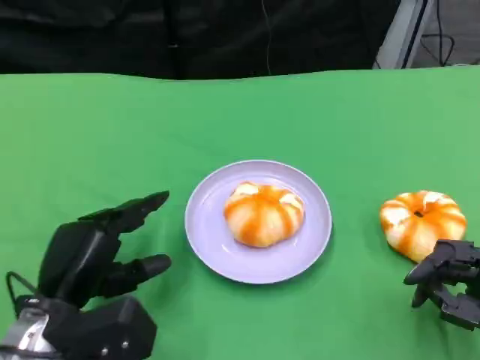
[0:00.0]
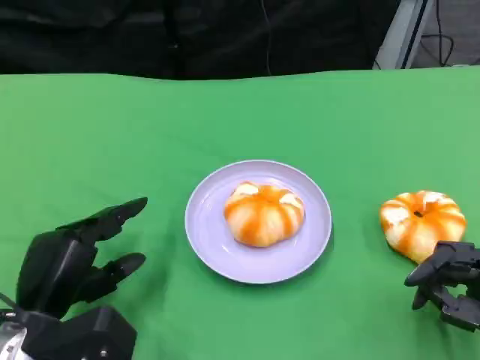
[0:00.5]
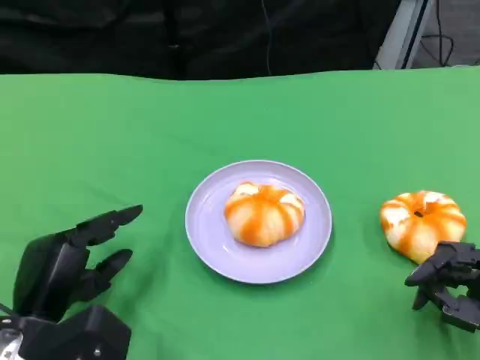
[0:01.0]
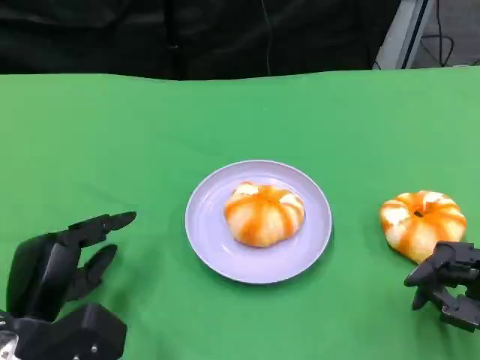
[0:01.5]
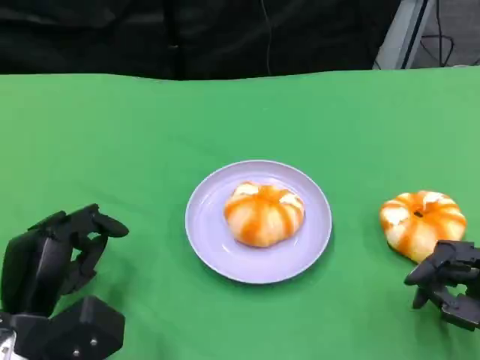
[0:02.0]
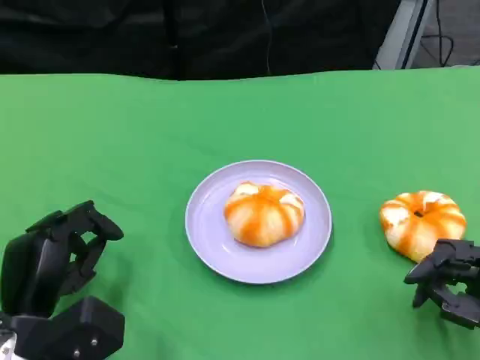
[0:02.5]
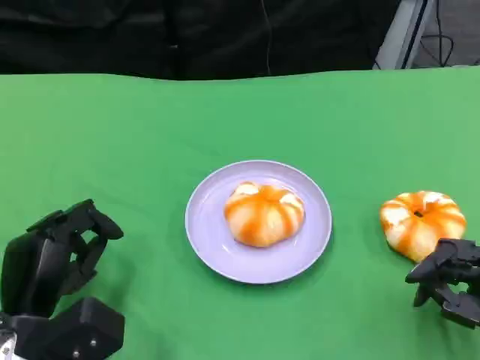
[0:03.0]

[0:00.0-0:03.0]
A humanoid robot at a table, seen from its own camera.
Task of the whole recording: Grasp the bread from the table and place it into the plate.
0:00.0 to 0:01.5: The hands move only a little.
0:01.5 to 0:03.0: Both hands stay put.

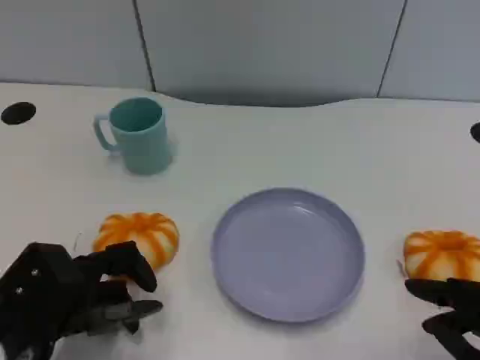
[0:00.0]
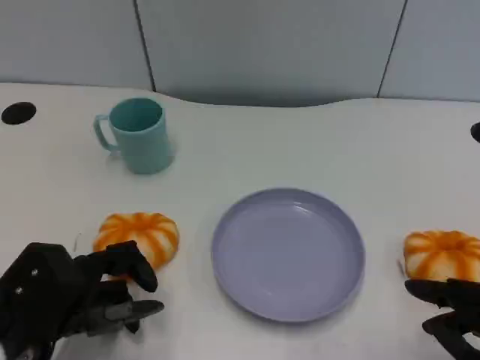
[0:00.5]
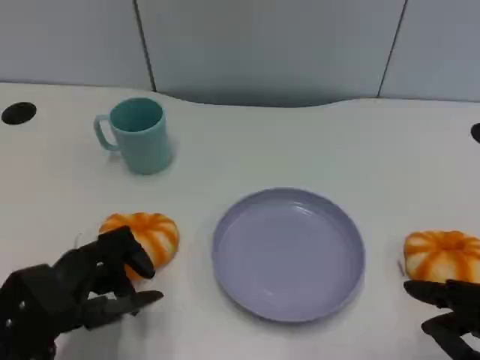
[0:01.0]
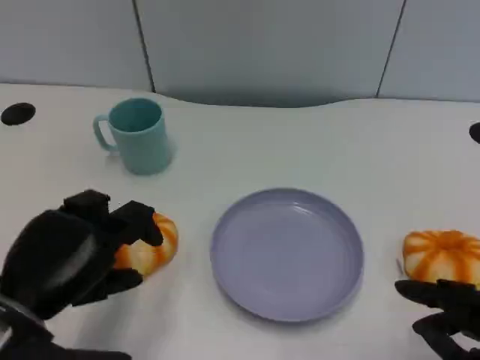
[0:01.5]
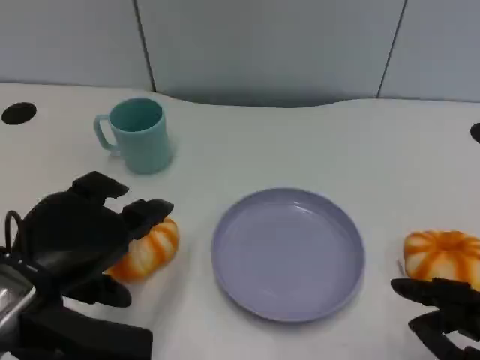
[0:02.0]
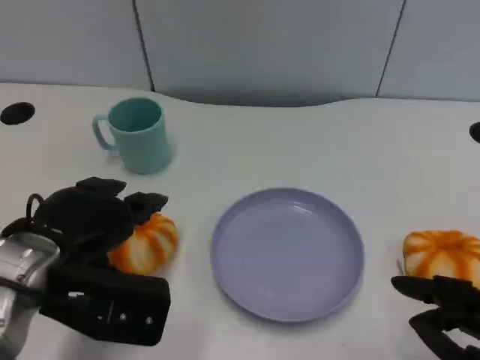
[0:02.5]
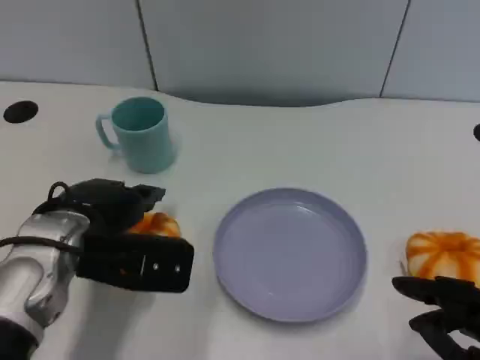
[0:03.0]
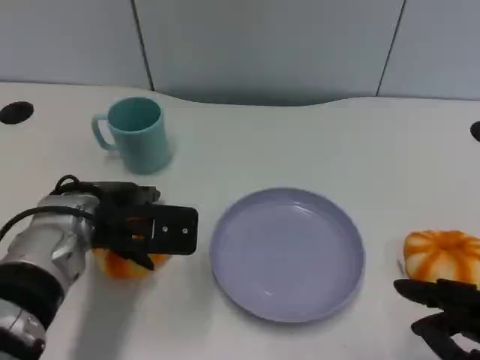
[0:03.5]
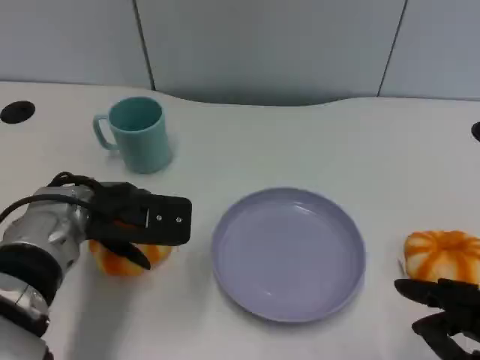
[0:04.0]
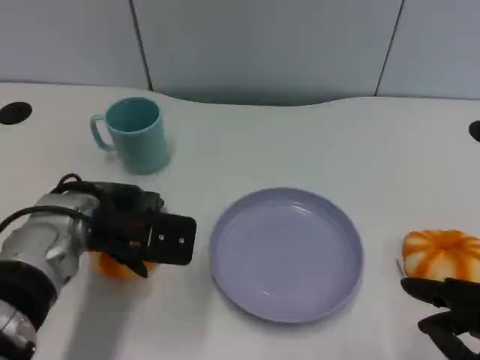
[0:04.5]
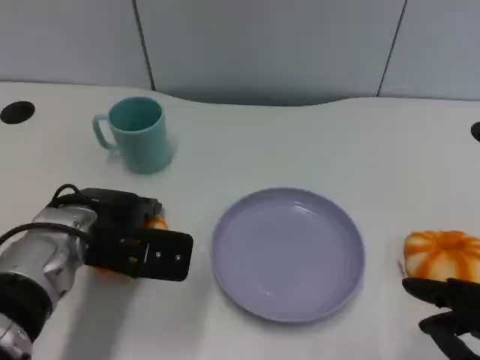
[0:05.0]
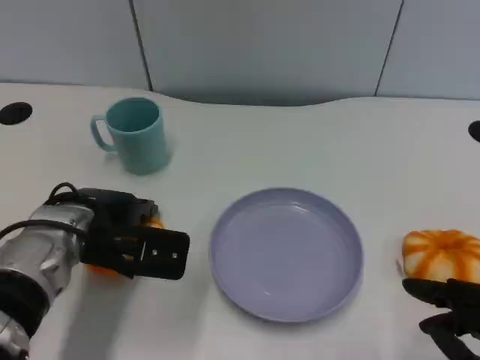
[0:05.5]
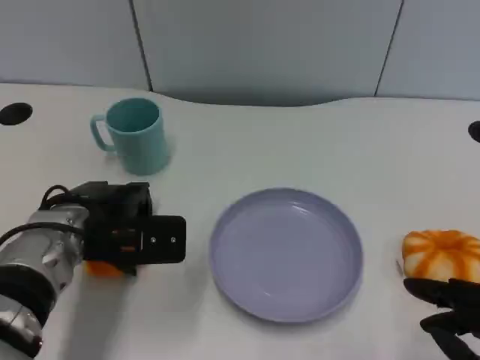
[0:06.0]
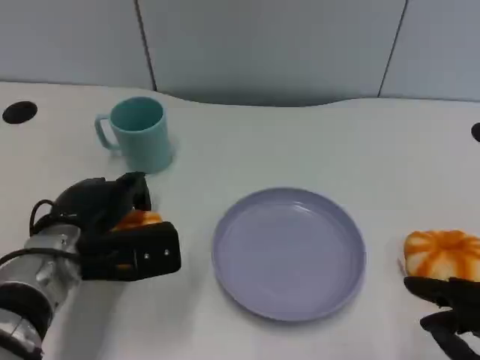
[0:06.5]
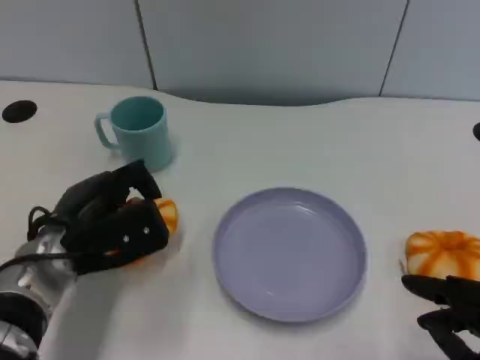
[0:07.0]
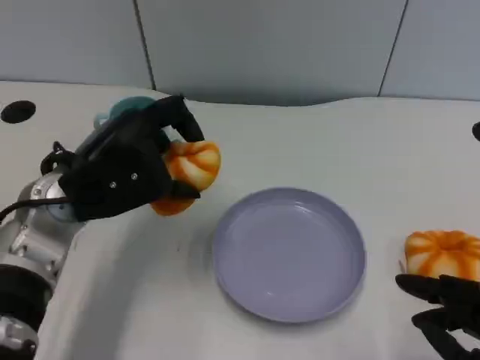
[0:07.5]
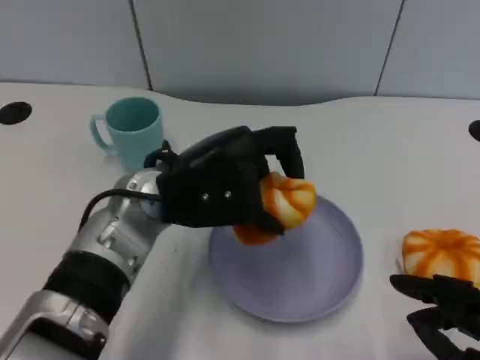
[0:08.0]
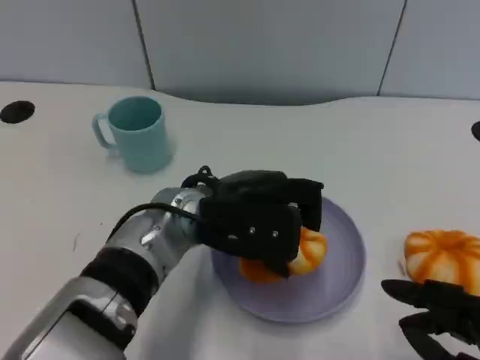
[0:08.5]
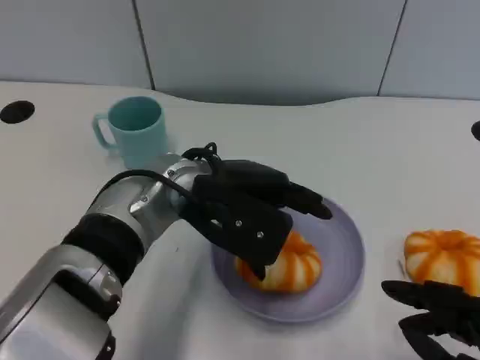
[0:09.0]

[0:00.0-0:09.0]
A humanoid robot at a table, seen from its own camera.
Task of the whole recording: Grasp the bread from the table and place it into the plate.
0:00.0 to 0:02.0: The left hand heads upward, covering about 10 cm.
0:02.0 to 0:04.5: The left hand heads forward, covering some 10 cm.
0:07.0 to 0:09.0: The left hand moves to the right and upward, roughly 15 cm.

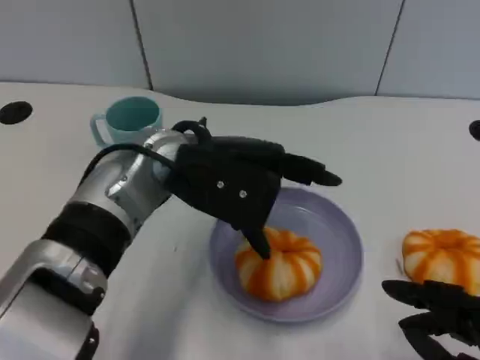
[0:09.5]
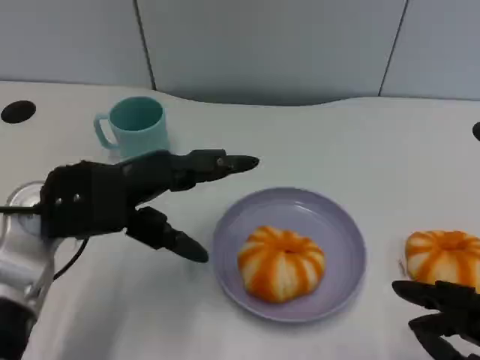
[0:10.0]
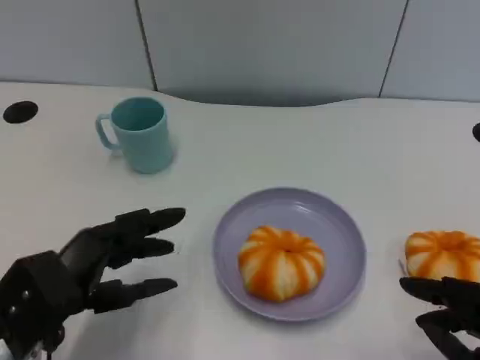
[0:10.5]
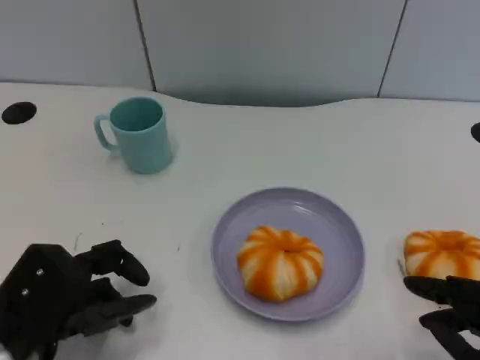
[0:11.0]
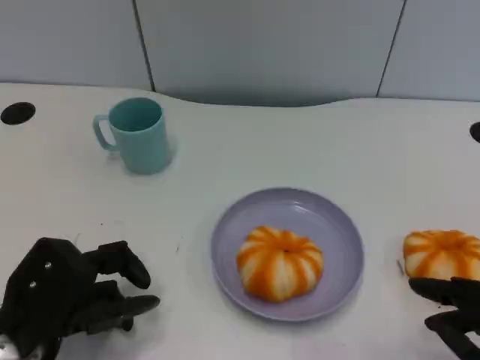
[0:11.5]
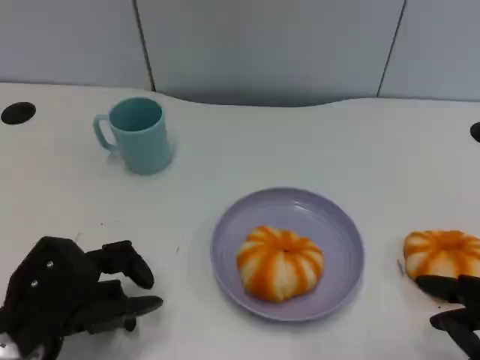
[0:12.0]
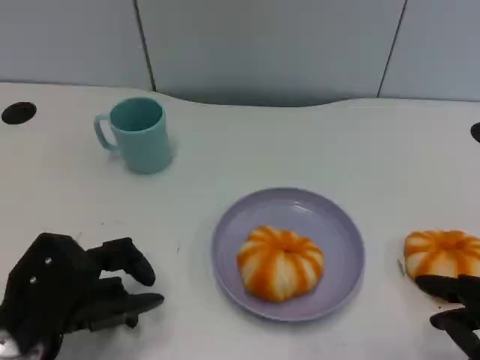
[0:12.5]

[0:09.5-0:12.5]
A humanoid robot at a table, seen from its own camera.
Task of the whole recording: Grasp the bread from the table and place it into the plate.
0:09.5 to 0:11.0: The left hand goes roughly 25 cm to the left, downward and backward.
0:11.0 to 0:12.5: The two hands keep their place.

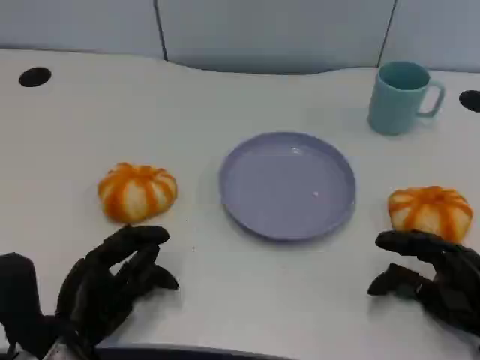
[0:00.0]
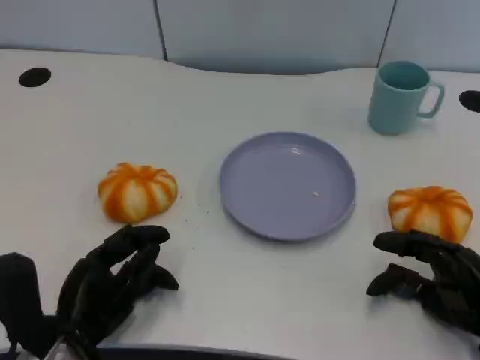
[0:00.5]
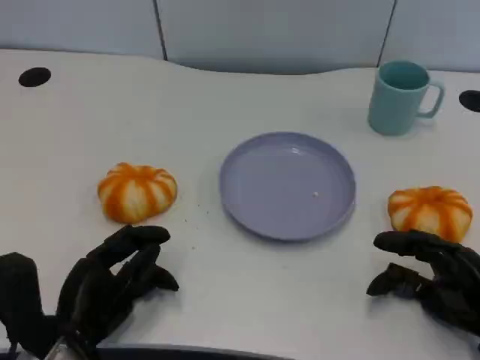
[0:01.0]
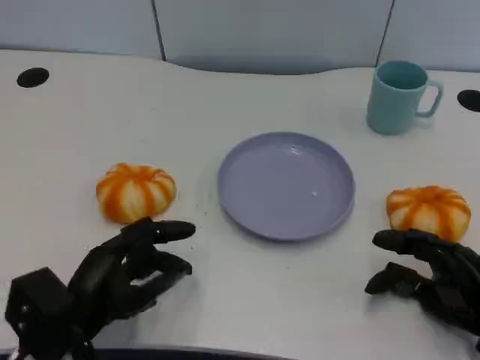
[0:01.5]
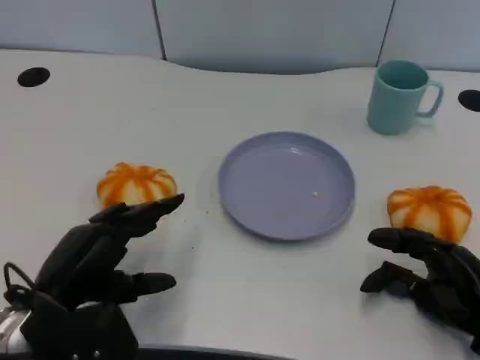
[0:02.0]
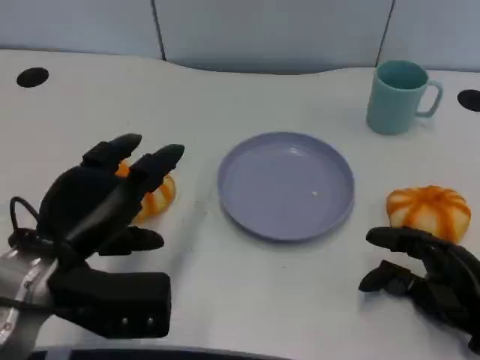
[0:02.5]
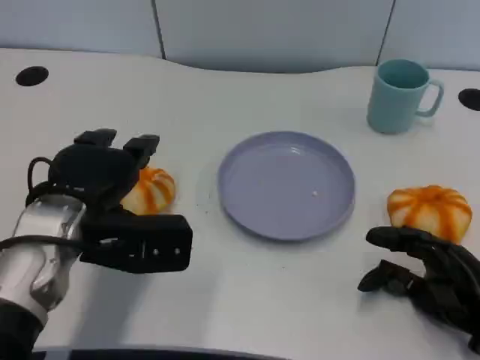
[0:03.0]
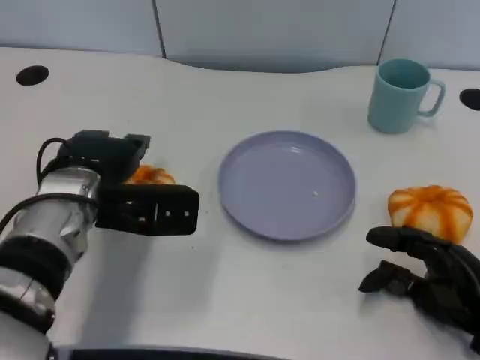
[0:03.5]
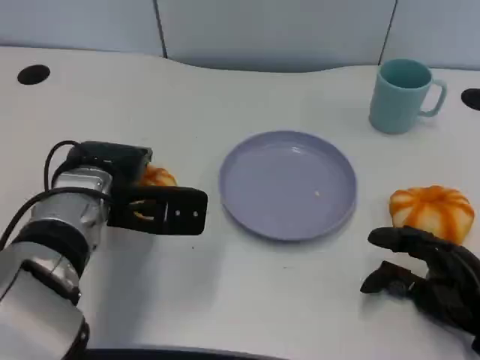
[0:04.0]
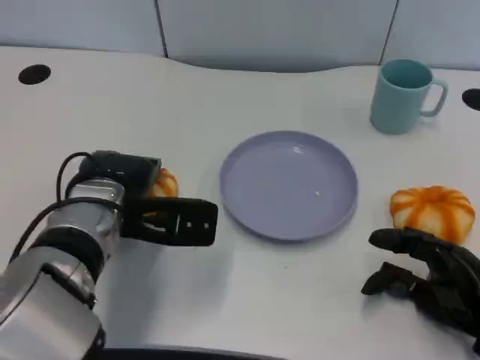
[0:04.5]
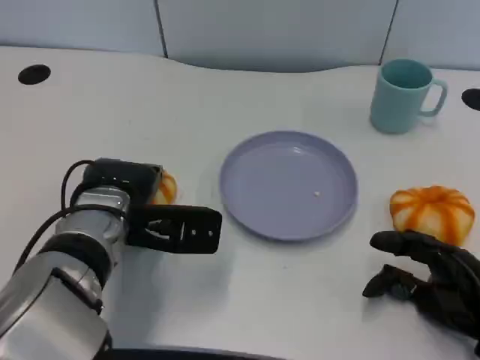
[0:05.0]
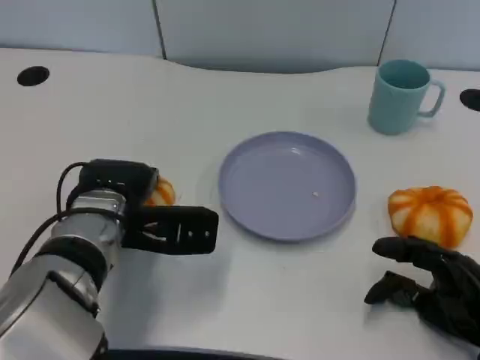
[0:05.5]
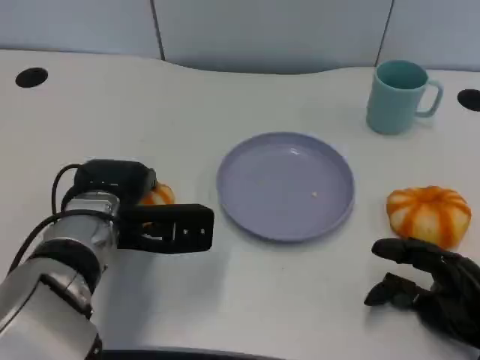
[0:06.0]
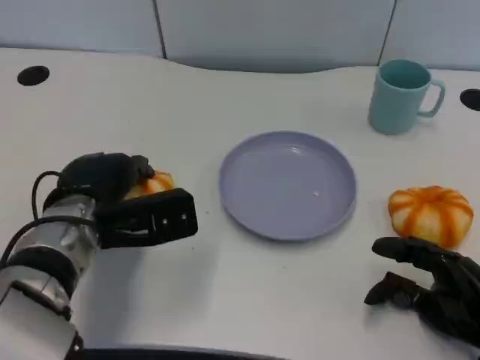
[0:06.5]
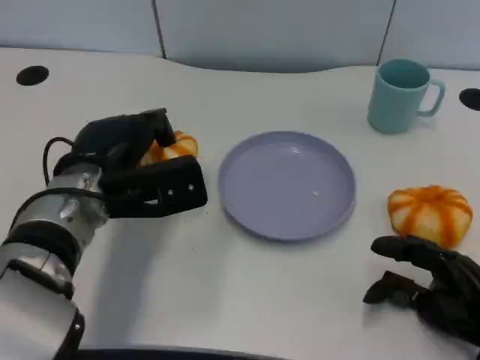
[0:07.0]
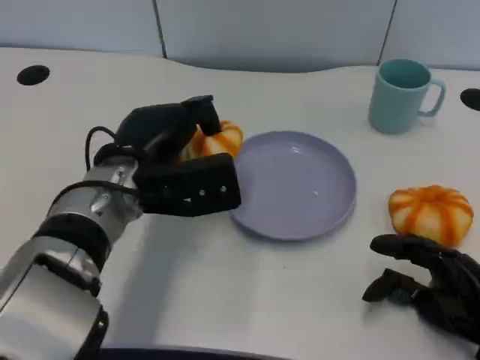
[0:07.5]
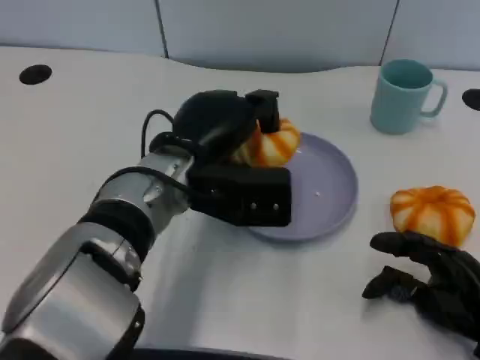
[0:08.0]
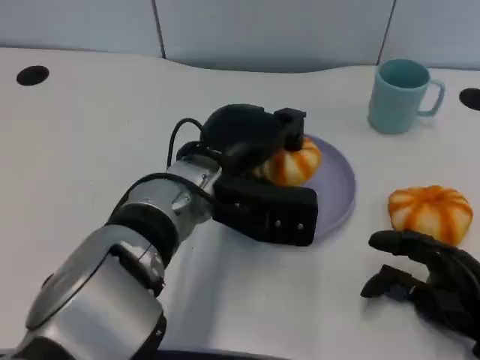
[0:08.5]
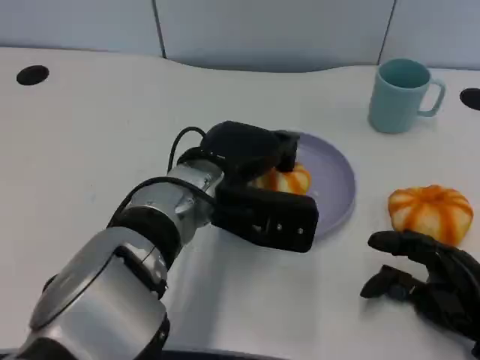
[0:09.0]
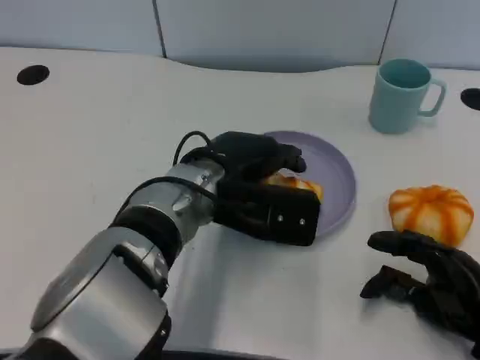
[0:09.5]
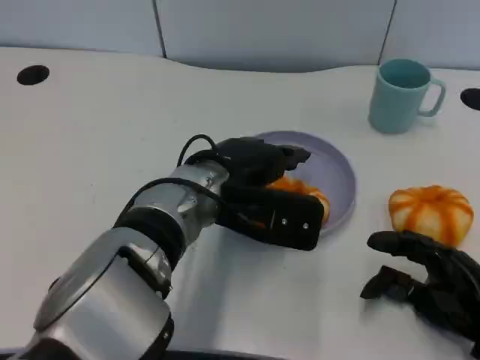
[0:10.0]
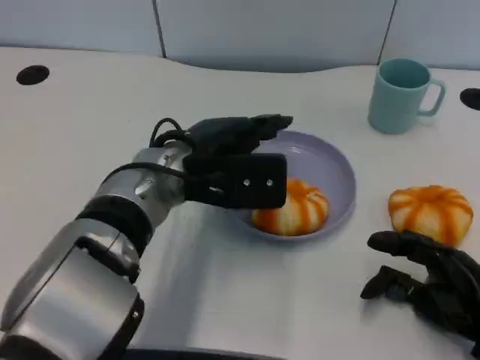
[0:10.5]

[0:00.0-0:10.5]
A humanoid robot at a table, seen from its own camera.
Task of the whole recording: Grasp the bread from the table and place it into the plate.
0:00.0 to 0:02.0: The left hand goes roughly 5 cm upward.
0:02.0 to 0:04.0: The left hand shifts some 15 cm forward and to the right.
0:06.5 to 0:08.5: The left hand goes roughly 10 cm to the right.
